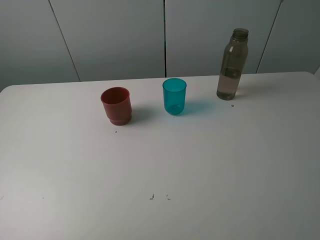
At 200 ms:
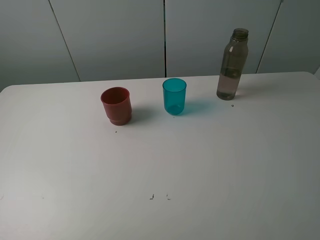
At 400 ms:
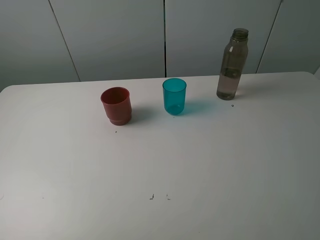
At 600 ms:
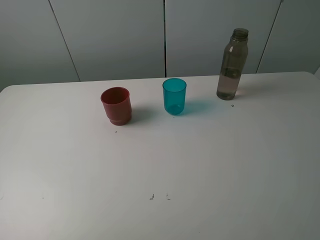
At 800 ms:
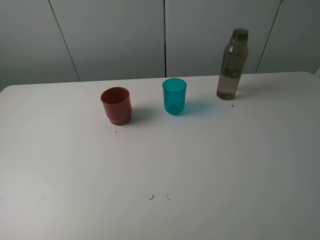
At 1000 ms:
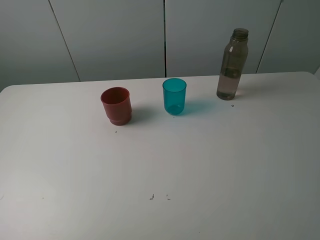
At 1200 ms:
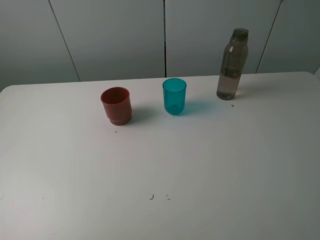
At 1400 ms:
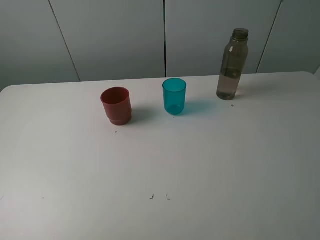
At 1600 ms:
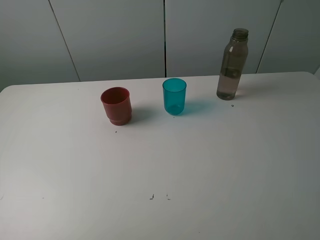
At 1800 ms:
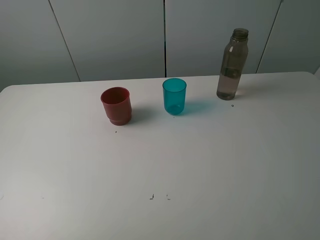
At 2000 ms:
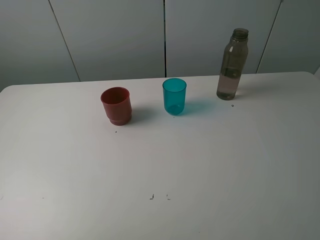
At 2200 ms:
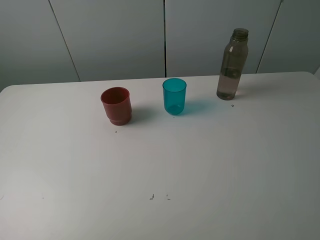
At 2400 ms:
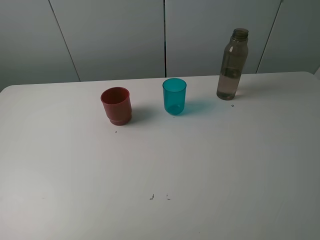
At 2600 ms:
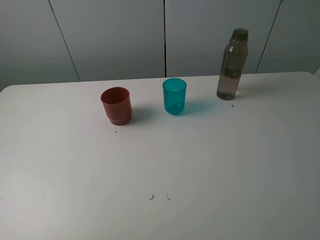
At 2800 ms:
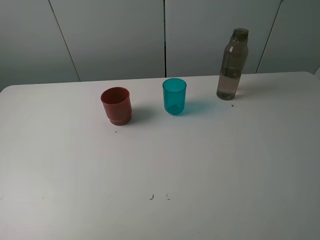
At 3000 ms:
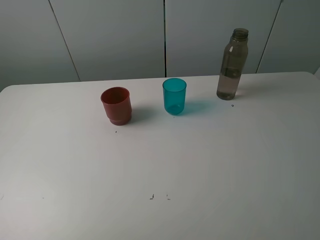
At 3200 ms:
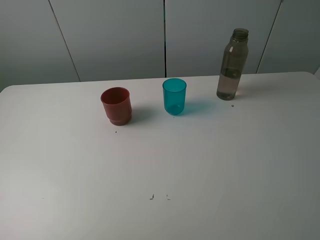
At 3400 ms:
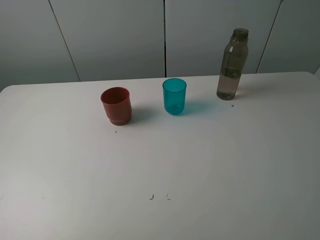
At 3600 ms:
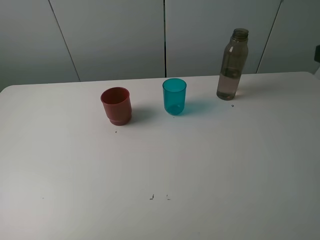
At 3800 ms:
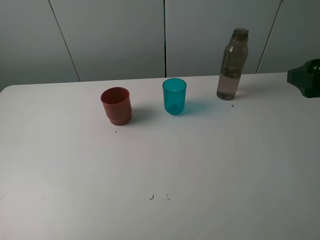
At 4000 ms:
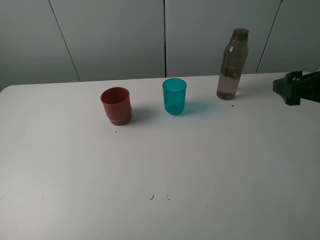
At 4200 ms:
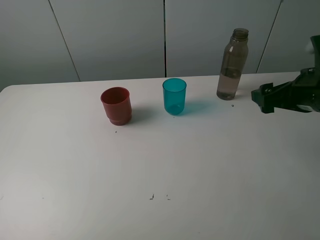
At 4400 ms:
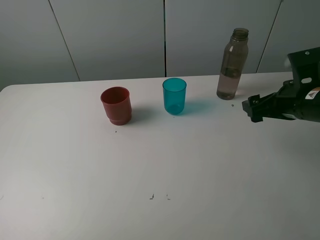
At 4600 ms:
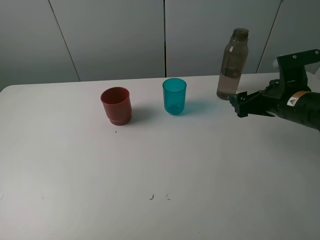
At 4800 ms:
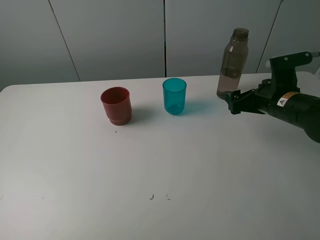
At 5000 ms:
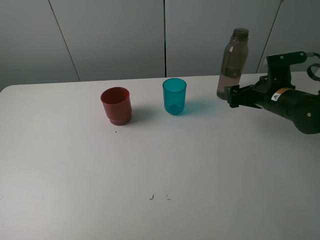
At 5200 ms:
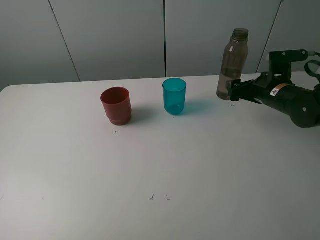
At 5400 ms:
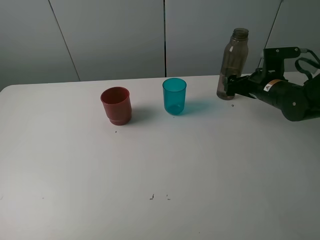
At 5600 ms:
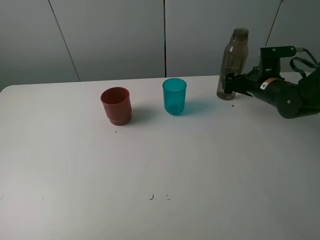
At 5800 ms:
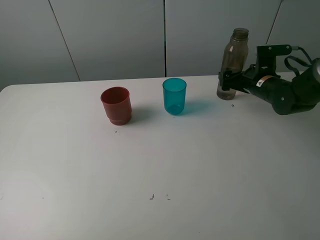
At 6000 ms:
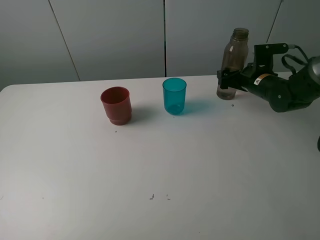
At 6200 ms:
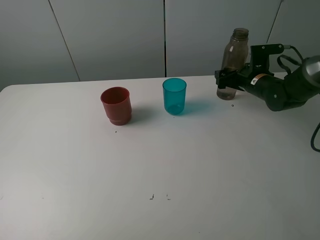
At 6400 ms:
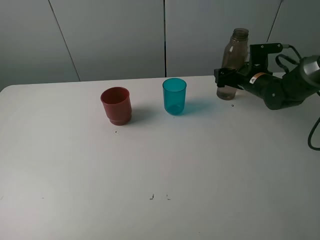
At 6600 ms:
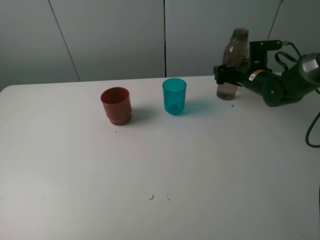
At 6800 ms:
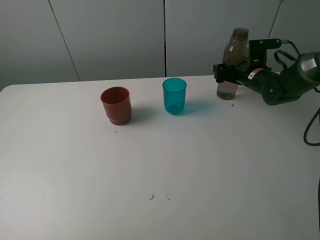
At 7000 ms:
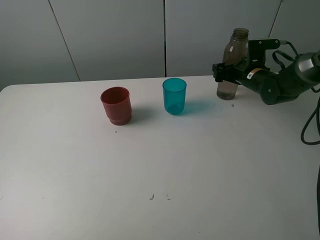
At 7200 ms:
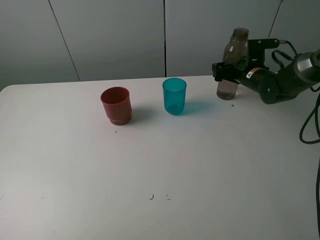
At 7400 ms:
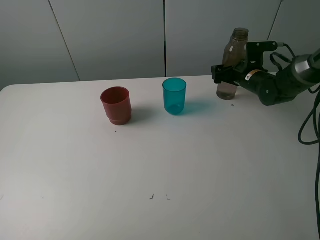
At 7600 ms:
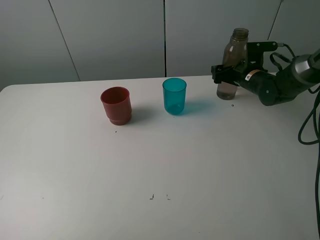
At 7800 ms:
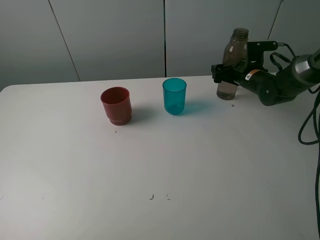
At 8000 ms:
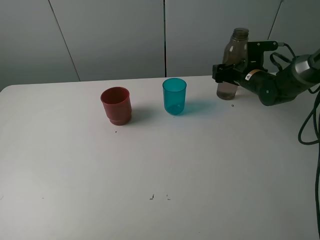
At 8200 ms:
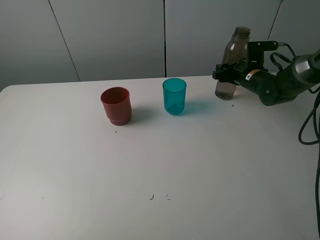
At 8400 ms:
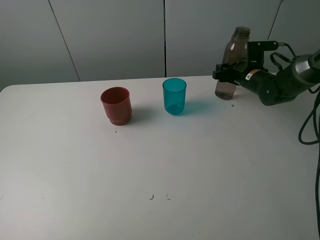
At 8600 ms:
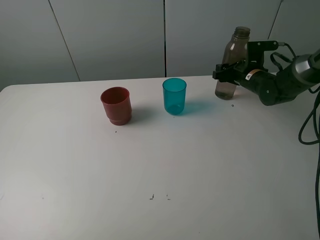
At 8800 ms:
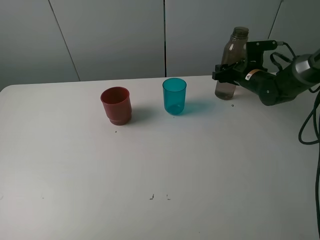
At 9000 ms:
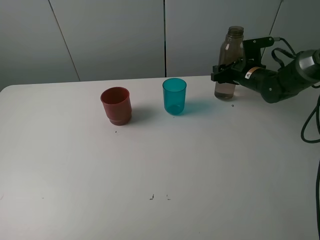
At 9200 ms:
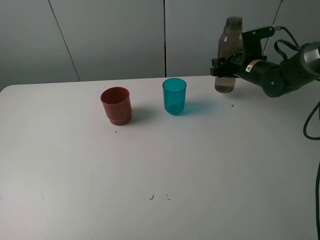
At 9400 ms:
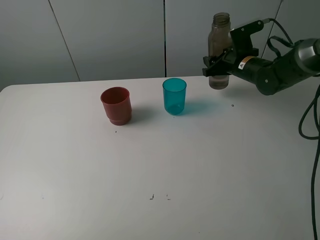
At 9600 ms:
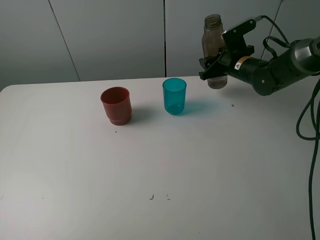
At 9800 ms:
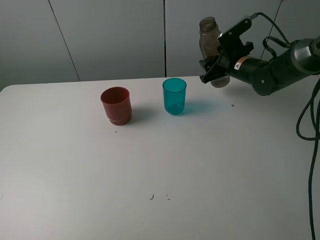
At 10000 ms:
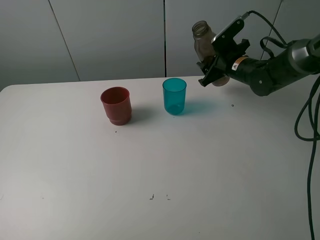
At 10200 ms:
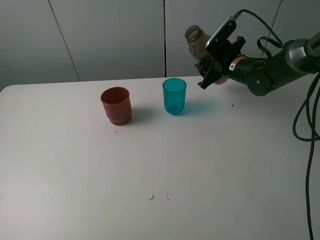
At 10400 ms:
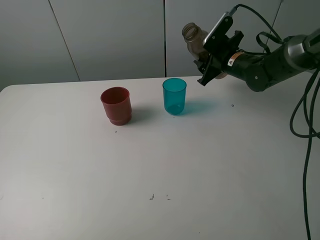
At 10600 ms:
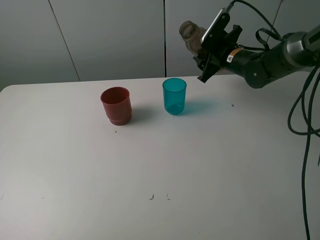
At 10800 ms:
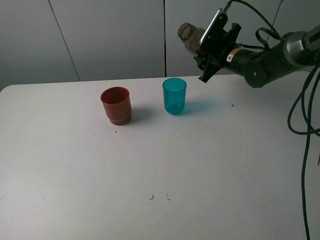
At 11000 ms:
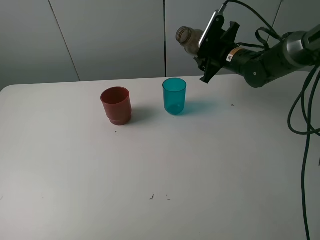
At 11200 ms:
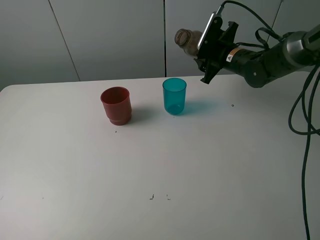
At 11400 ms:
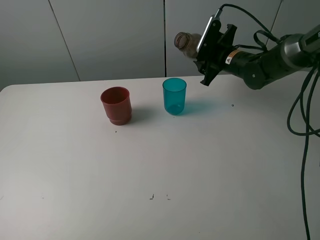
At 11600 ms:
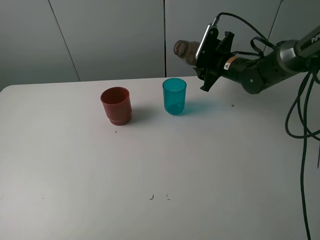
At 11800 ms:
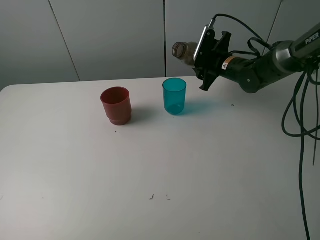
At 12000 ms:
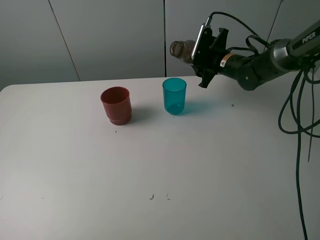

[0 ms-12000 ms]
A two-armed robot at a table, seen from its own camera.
Task of the whole recording: pick up the bottle and pour water into the cup, then pick up the cup containing water and pour it into another cup.
Step, 0 ms to 8000 ms: Grasp the brown bottle with the right gripper.
0 ms to 1600 ms: Both grippers stay put.
3000 ms to 4400 ms: The right gripper is displaced forward and downward by some 25 cm.
4400 ms to 6000 ms: The right gripper heads forward and downward, covering approximately 15 cm.
6000 ms to 7600 ms: The grippers make only small movements.
7600 ms to 9000 ms: The right gripper closes.
9000 ms to 10400 ms: The right gripper goes about 5 cm to the left.

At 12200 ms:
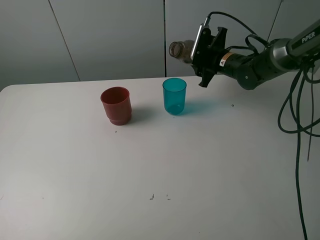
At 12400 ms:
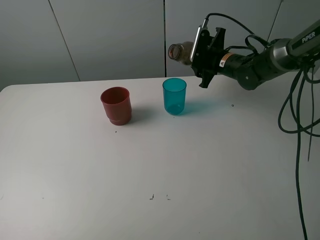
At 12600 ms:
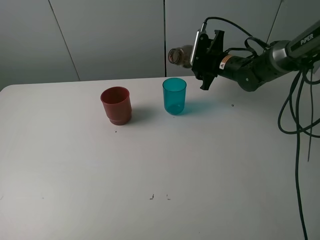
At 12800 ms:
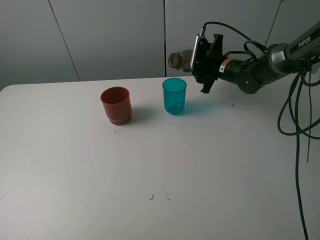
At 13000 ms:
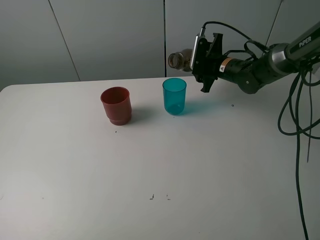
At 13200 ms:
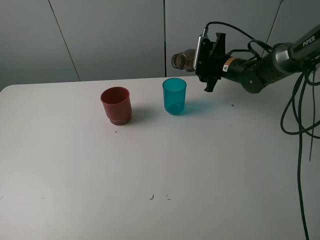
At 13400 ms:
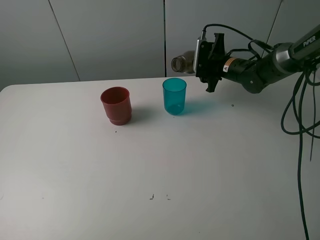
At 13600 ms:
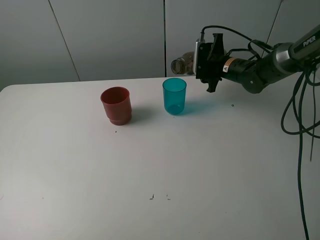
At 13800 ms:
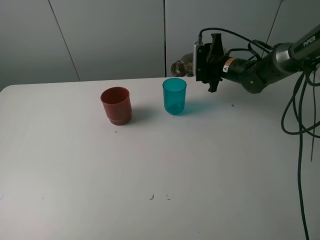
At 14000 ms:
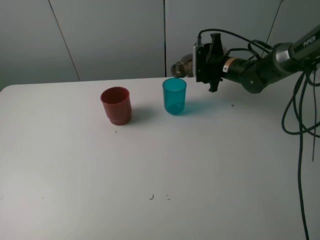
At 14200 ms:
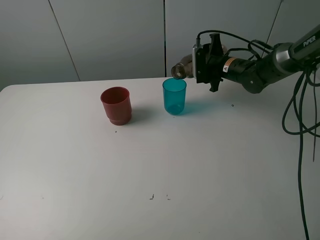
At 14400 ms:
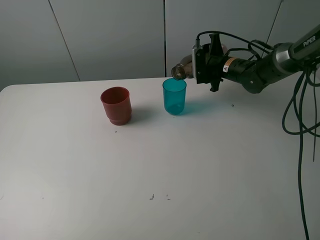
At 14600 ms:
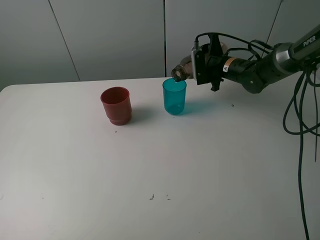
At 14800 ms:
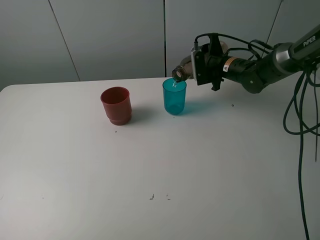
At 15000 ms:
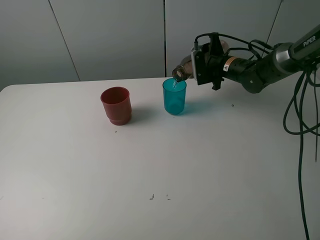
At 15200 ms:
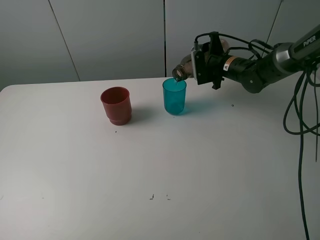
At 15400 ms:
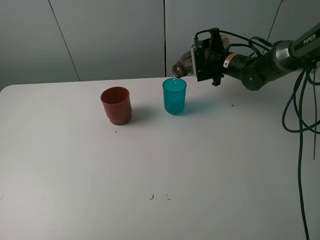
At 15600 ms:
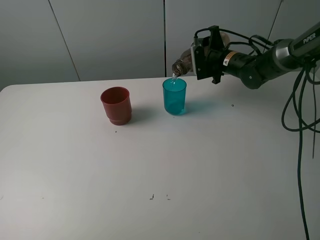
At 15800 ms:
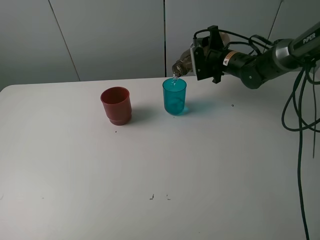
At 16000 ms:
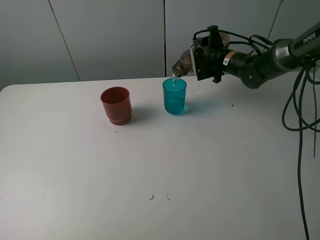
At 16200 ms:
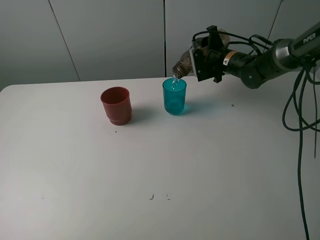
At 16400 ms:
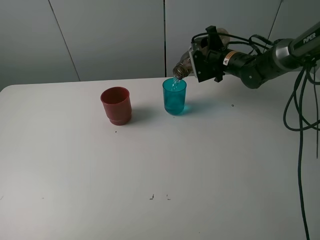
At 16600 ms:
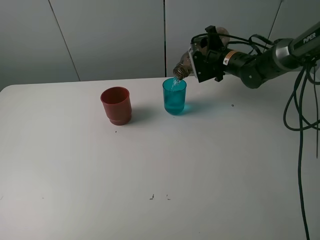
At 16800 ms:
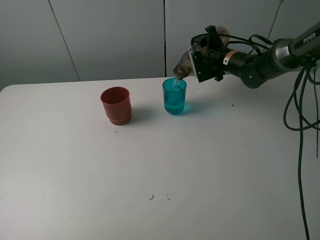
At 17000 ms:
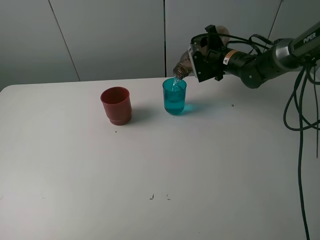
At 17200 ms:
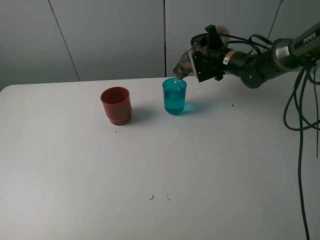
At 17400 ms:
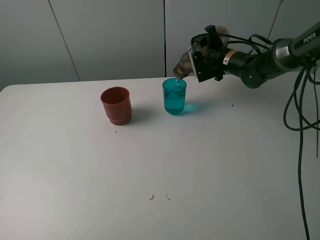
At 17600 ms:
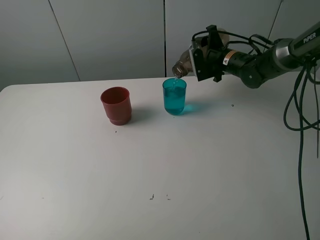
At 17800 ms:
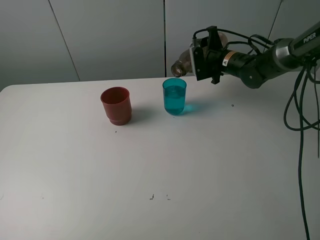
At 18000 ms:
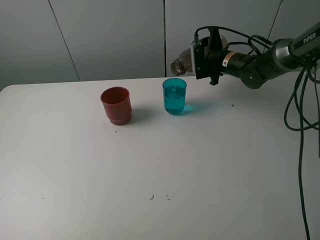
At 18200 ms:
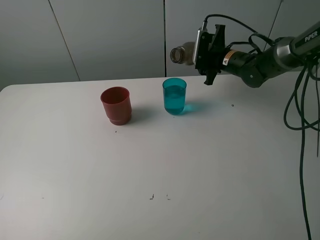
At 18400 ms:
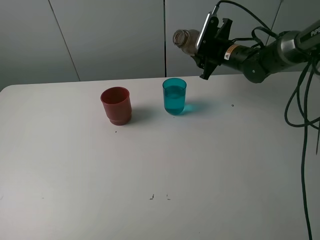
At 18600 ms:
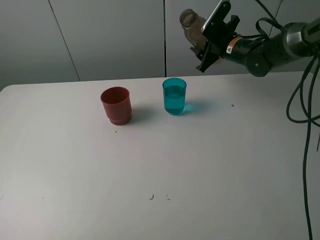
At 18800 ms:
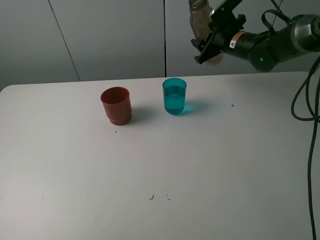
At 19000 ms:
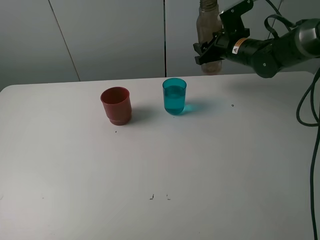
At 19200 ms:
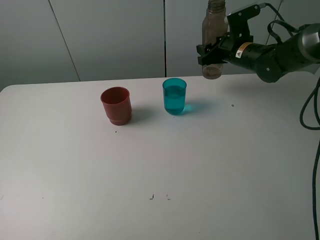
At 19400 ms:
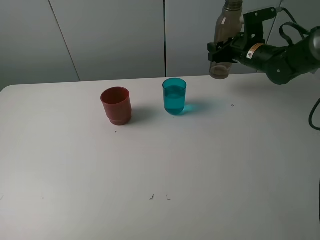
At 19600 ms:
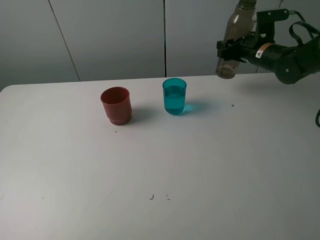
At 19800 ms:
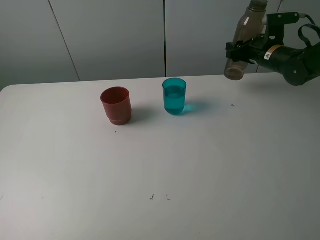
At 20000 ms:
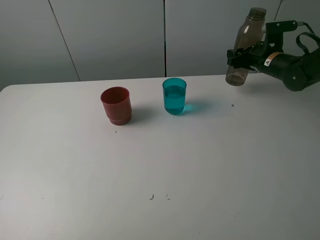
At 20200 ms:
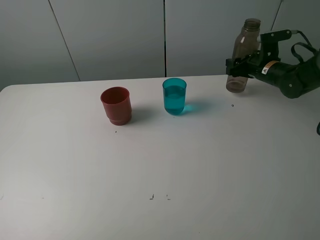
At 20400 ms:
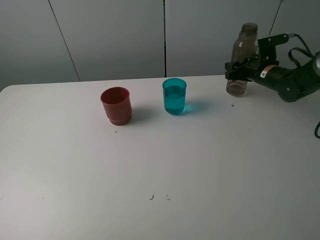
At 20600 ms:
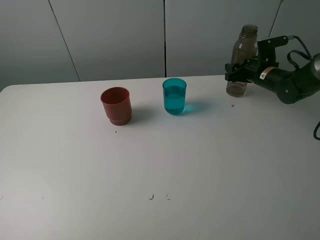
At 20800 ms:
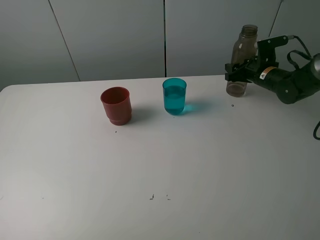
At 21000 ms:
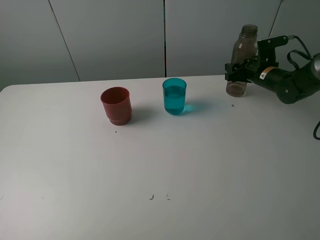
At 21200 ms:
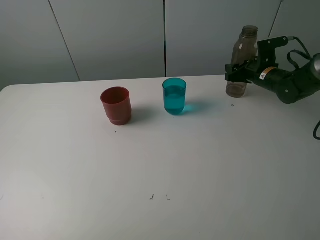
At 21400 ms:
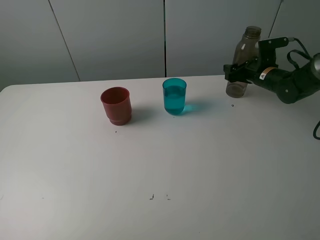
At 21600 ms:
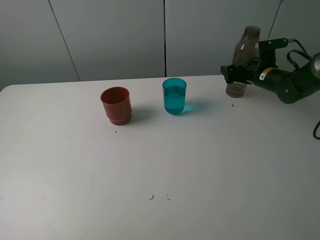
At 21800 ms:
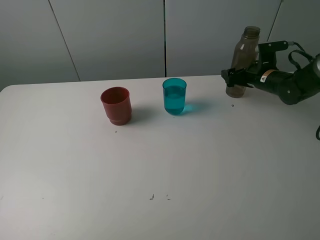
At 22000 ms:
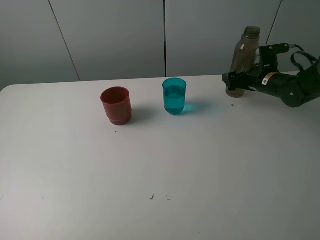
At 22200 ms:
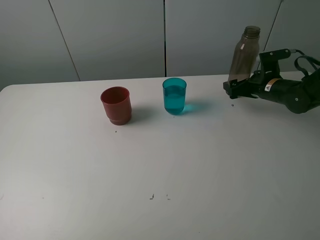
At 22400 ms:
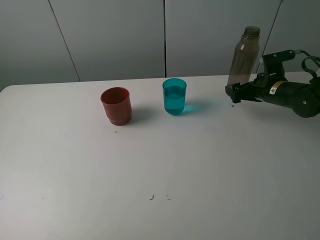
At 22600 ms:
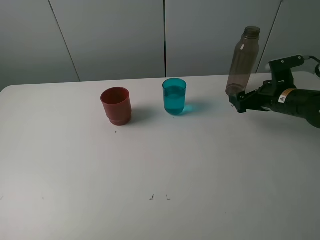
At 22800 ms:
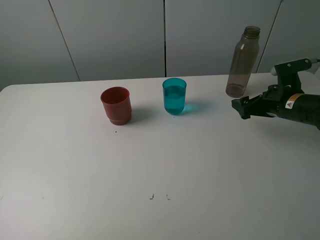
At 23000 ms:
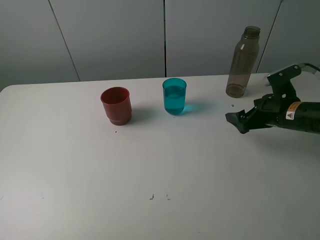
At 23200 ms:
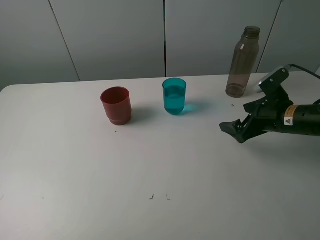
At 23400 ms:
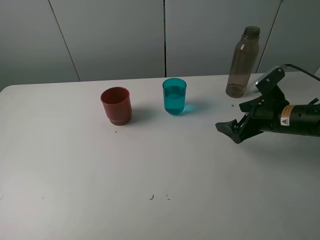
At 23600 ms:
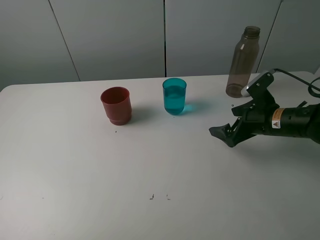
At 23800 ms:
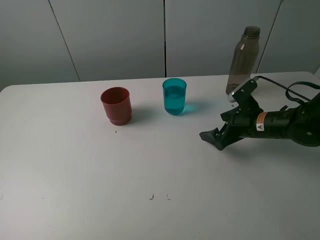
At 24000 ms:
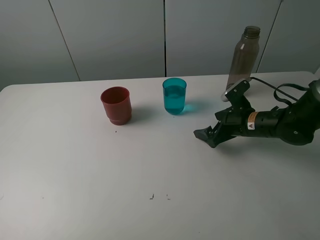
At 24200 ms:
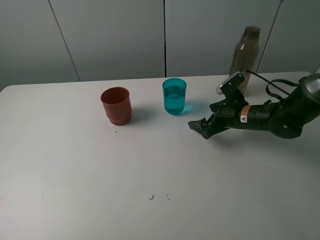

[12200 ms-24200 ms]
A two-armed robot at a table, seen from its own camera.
Task of the whole recording: pick up the bottle and pour water into the cup, then pick up the cup containing water and pour it into another cup.
Step, 12200 ms to 18000 ms: Pour water from brown bottle to blue cup with the right gripper.
Step, 18200 ms to 21600 ms: Place the brown bottle with the right gripper.
12200 ms to 13800 ms: There are only small adjustments of the grippers.
13800 ms to 16600 ms: The grippers move only a little.
18200 ms to 19800 ms: The right gripper goes some 10 cm to the right.
19800 ms to 21200 ms: The right gripper goes roughly 5 cm downward.
21200 ms to 22600 ms: The right gripper goes about 10 cm backward, and opens up.
22600 ms to 24200 ms: The right gripper heads to the left, covering approximately 10 cm.
